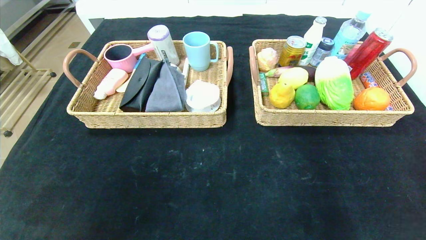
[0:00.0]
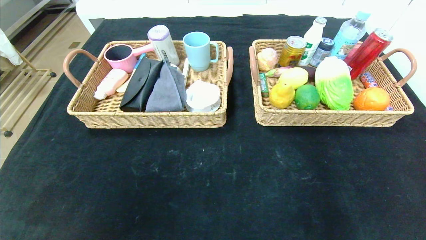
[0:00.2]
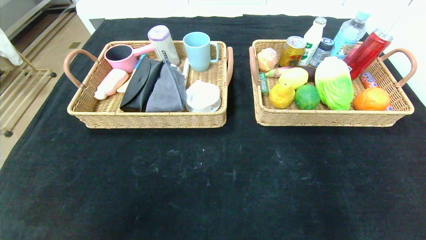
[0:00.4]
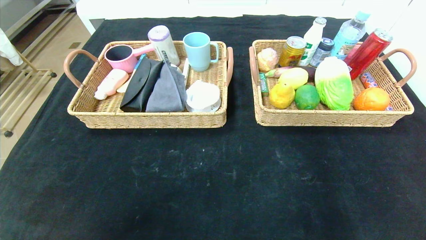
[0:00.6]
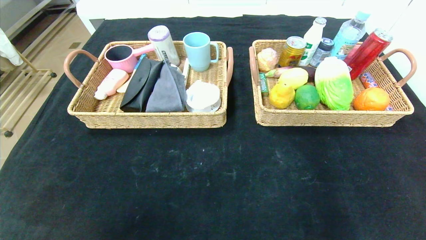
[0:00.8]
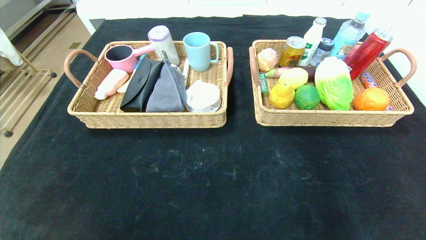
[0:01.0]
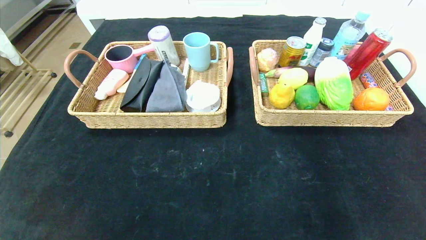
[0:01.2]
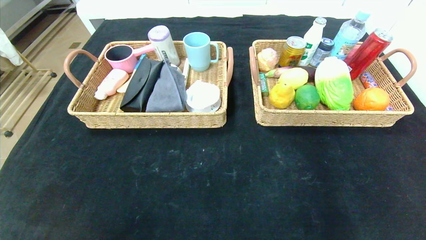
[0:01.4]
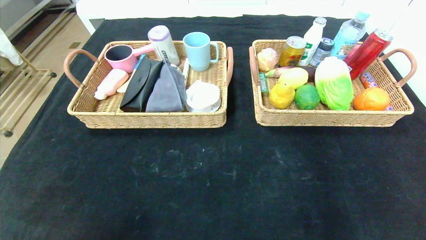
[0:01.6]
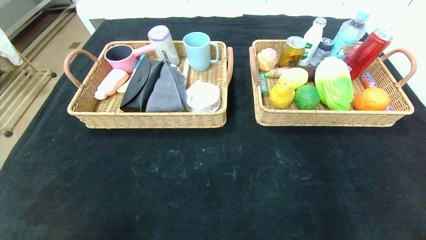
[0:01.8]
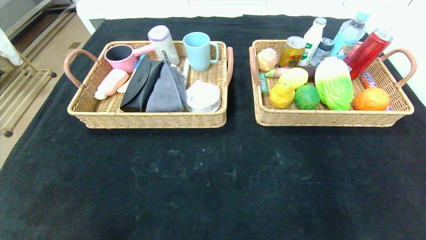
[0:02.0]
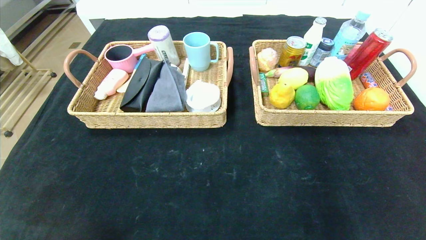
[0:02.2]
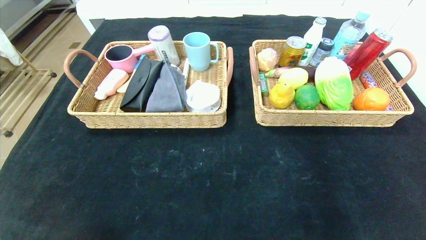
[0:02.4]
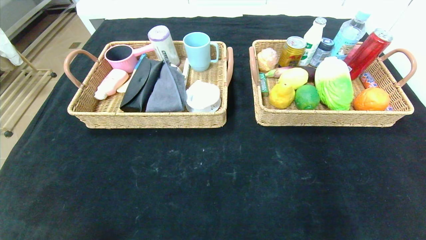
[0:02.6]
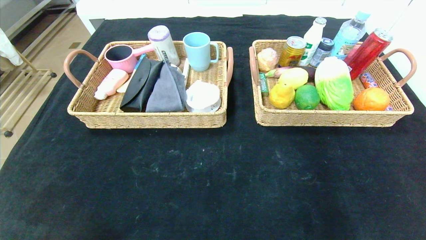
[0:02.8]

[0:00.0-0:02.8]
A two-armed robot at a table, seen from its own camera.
0:00.0 to 0:01.4: The left gripper travels backward and downward by roughly 10 cm; the right gripper shifts some 10 cm downward and backward.
